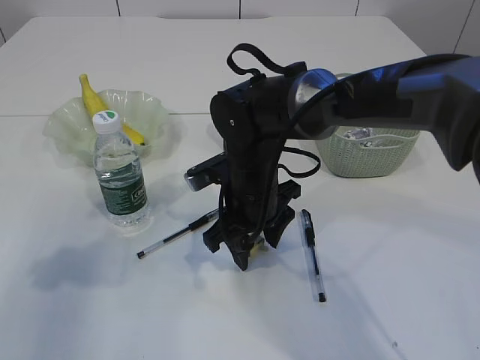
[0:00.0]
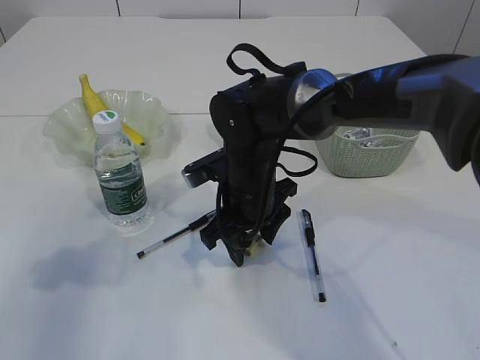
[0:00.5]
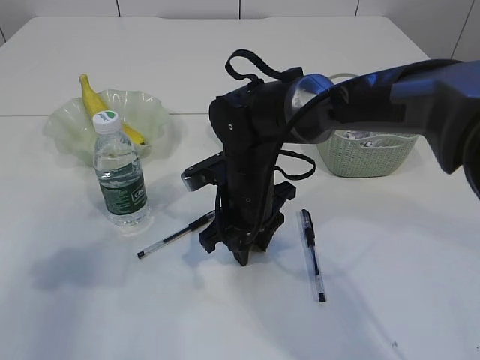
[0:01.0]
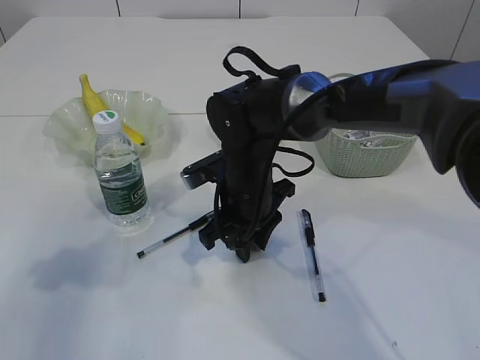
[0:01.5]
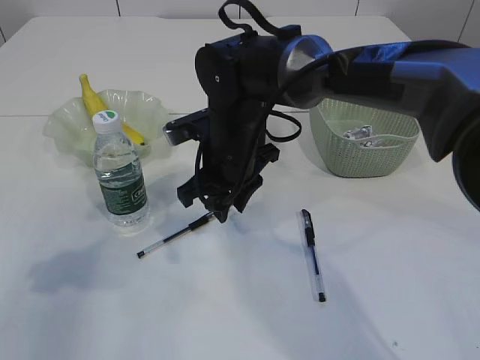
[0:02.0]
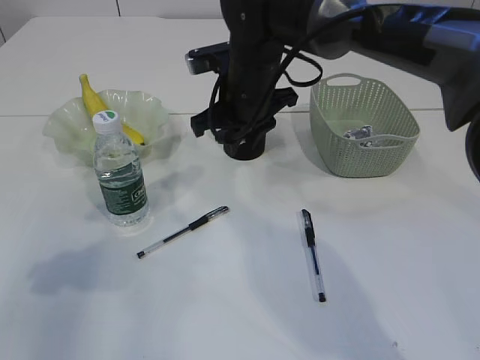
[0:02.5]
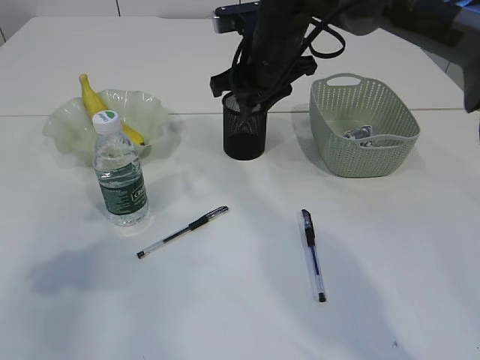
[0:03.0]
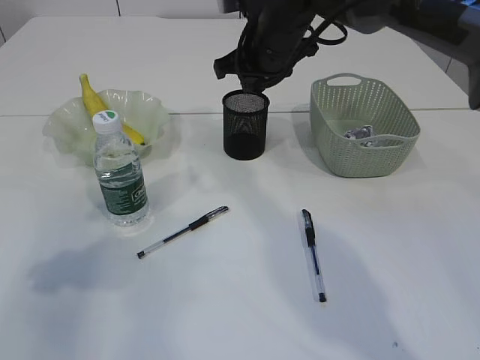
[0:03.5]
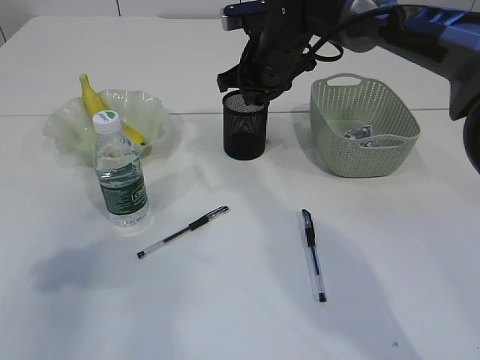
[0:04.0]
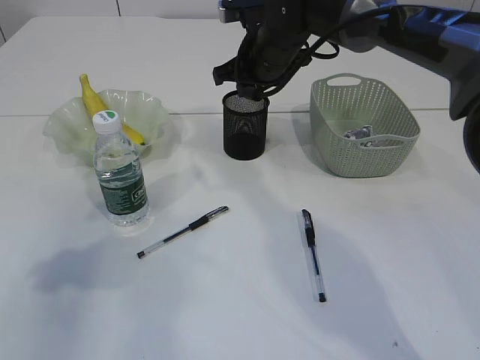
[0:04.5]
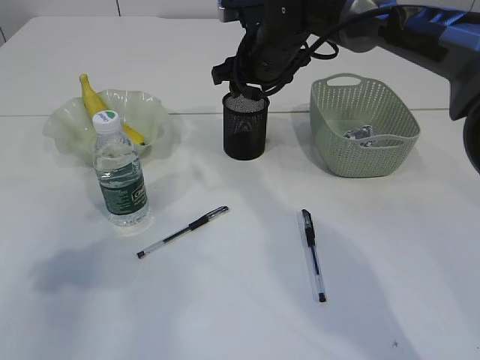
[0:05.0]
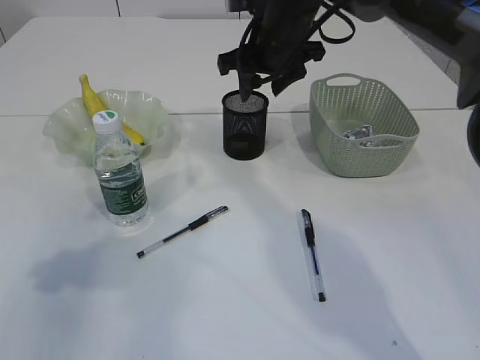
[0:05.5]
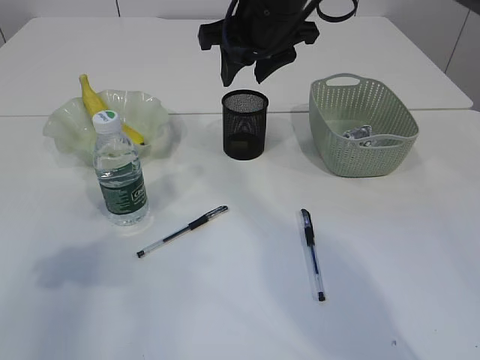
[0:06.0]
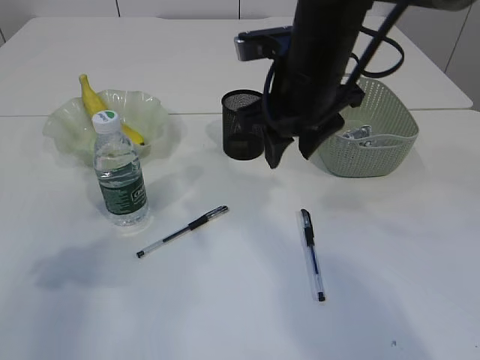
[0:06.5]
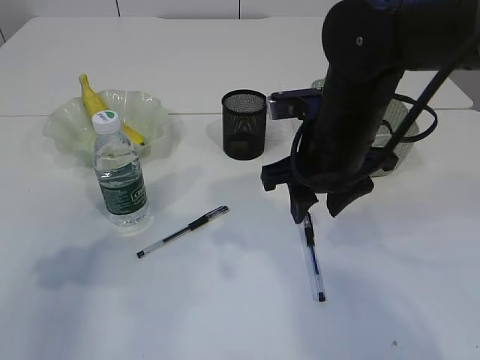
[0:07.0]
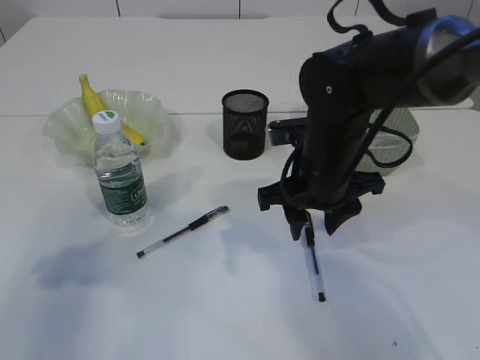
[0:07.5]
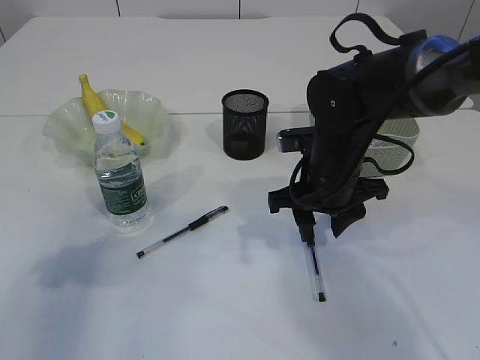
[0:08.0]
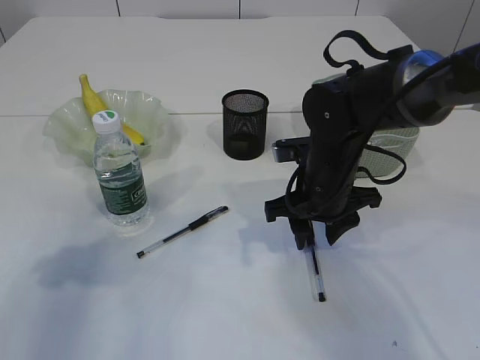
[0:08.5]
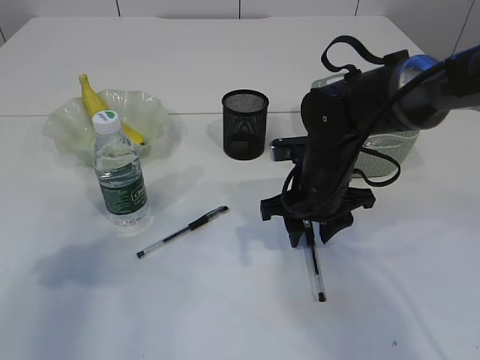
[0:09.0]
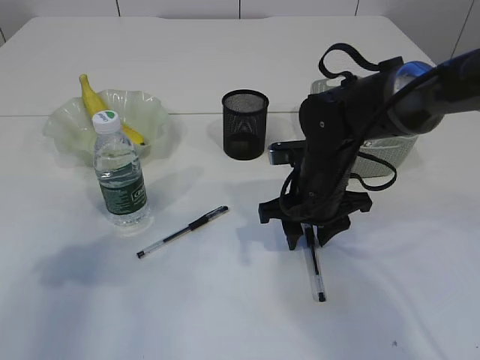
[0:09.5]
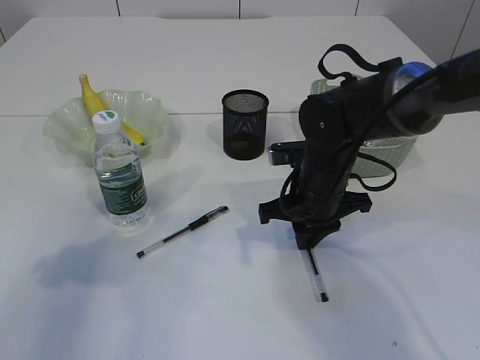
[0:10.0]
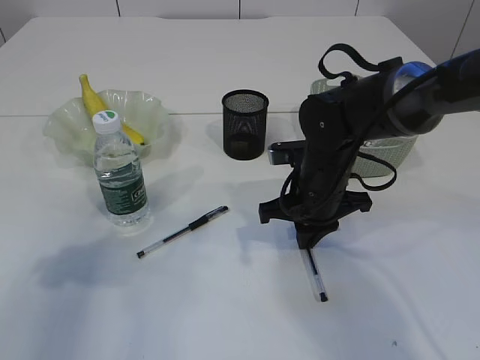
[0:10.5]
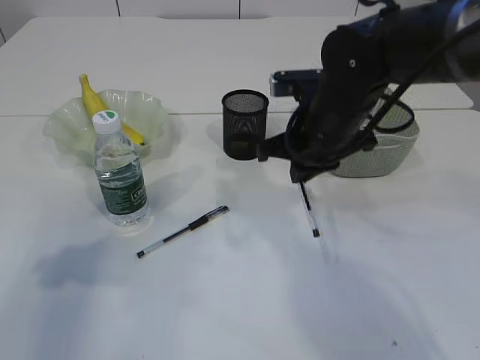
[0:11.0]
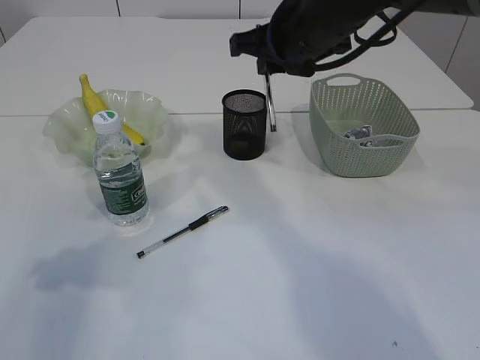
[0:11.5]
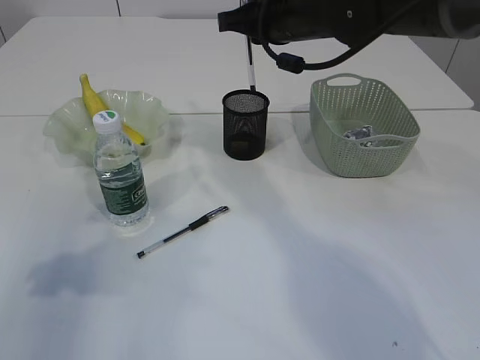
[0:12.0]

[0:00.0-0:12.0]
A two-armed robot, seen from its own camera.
Step, 0:02.0 to 0:05.5: Place the eraser into the pen holder.
Step, 0:06.0 to 0:10.5: Pick up the pen with right arm.
0:00.0 to 0:02.0: The right gripper changes place by some 5 cm, and closes.
0:02.0 to 0:04.0: The right gripper shifts roughly 15 cm forward, to the right and upward.
0:04.0 to 0:06.0: The right gripper travels upward and backward by approximately 10 cm.
0:06.0 to 0:08.0: The right gripper heads downward and backward, covering about 20 cm.
0:08.0 to 0:10.0: The right gripper closes up.
0:10.0 to 0:12.0: The right gripper moves upward and forward, roughly 20 cm.

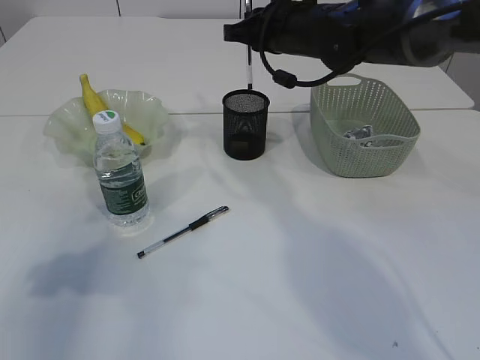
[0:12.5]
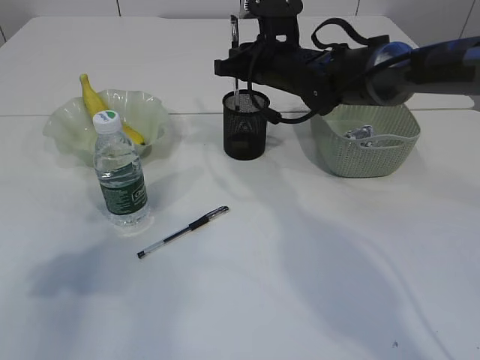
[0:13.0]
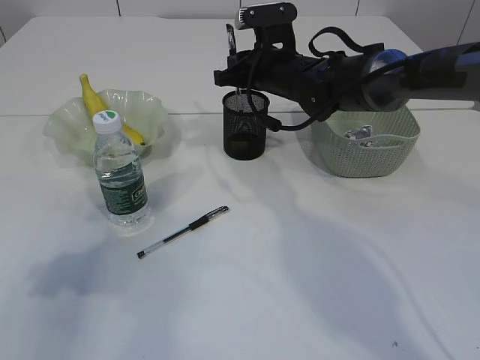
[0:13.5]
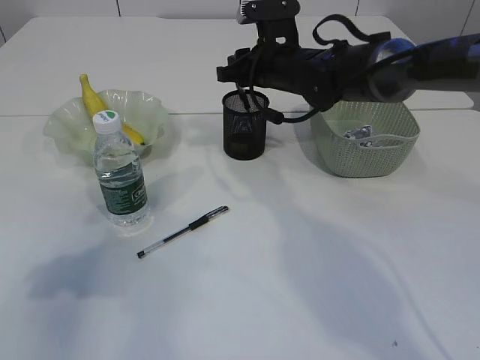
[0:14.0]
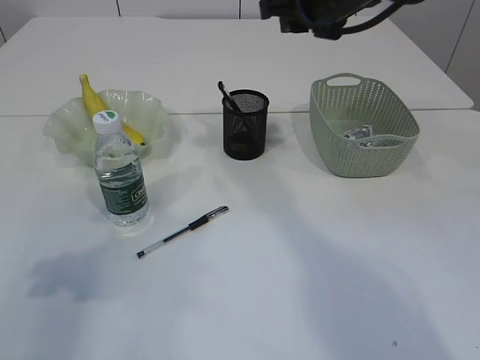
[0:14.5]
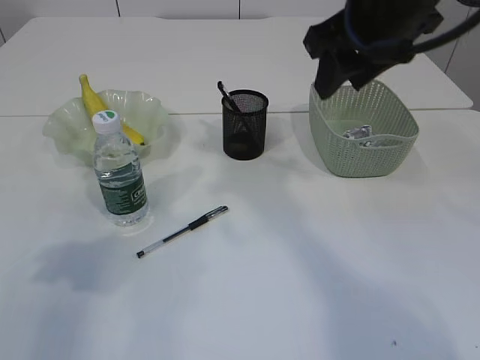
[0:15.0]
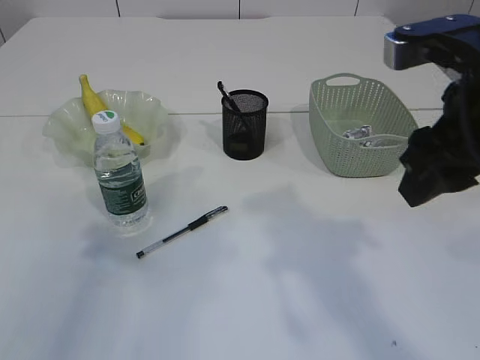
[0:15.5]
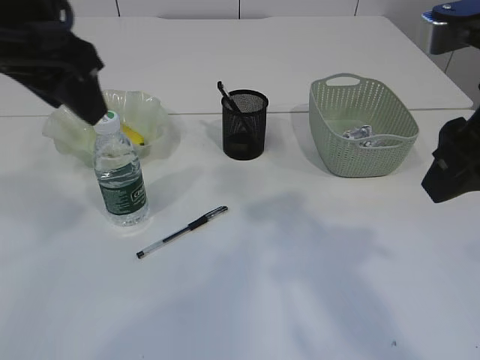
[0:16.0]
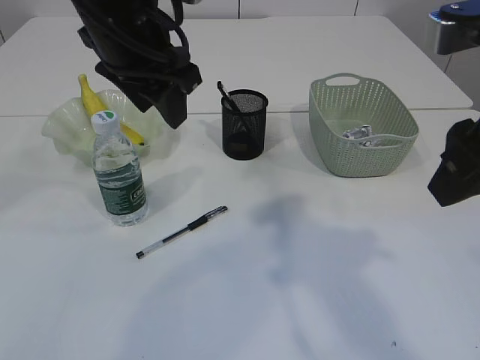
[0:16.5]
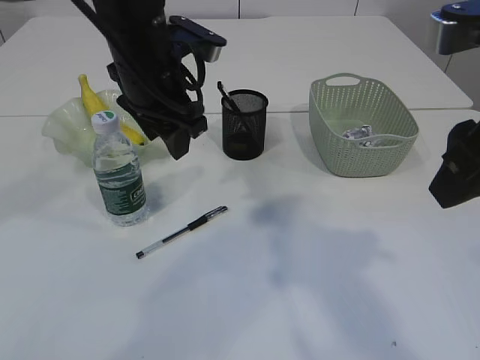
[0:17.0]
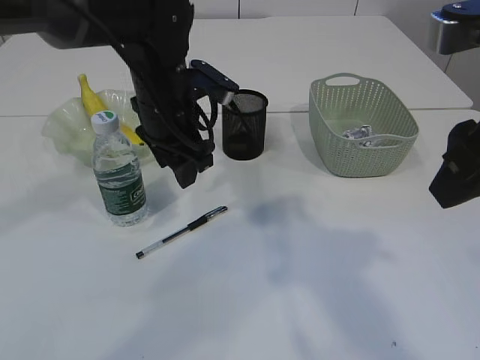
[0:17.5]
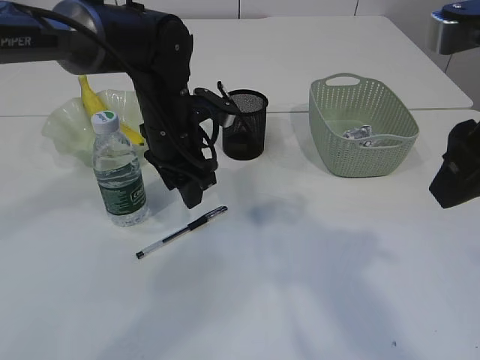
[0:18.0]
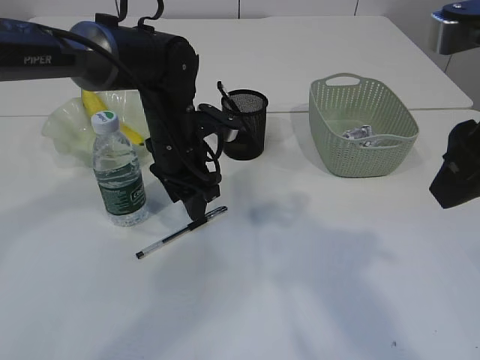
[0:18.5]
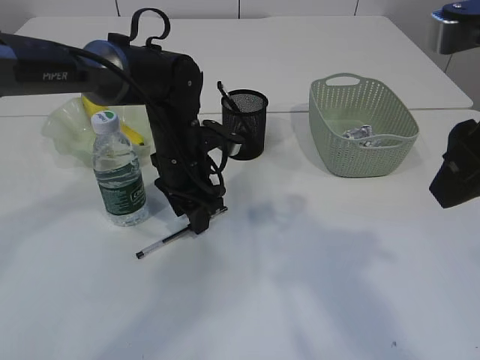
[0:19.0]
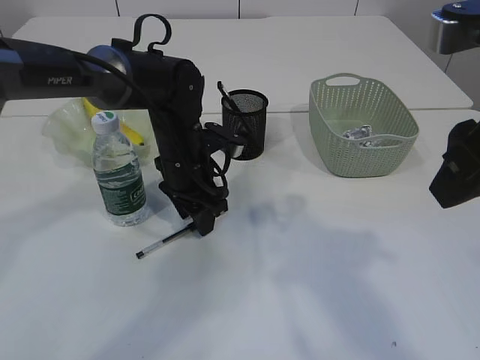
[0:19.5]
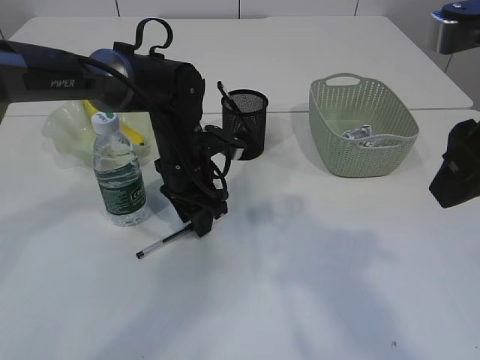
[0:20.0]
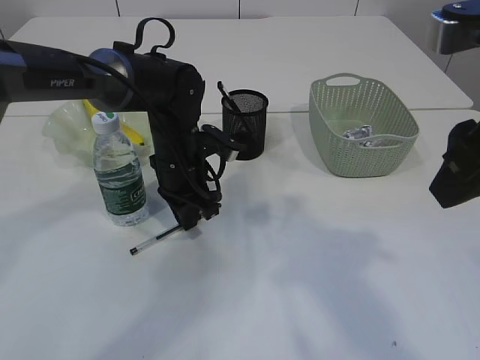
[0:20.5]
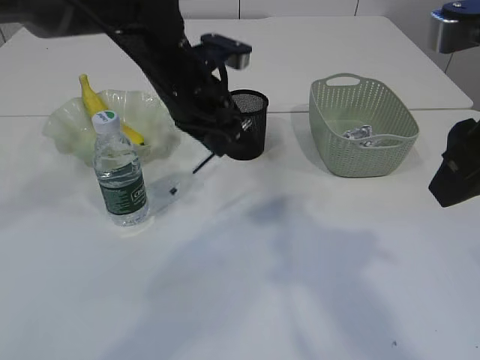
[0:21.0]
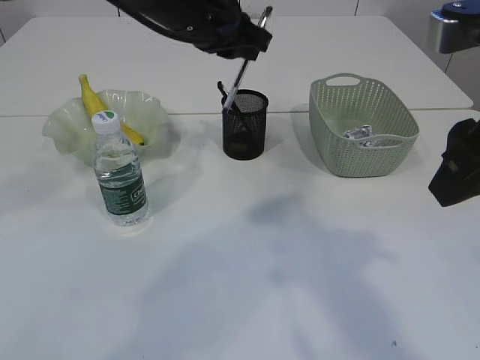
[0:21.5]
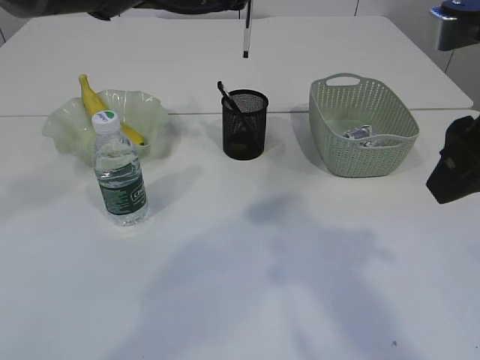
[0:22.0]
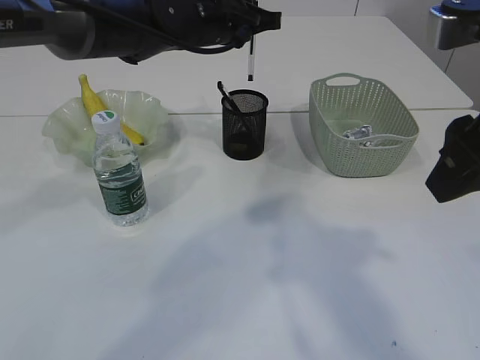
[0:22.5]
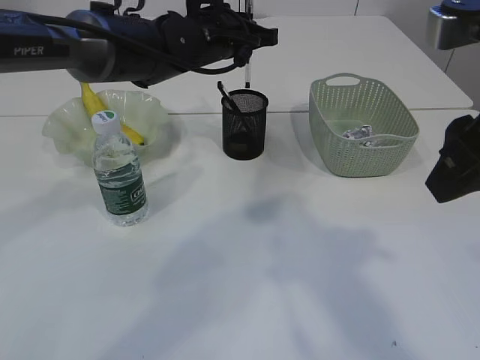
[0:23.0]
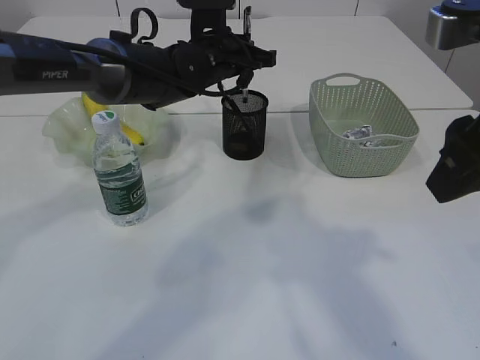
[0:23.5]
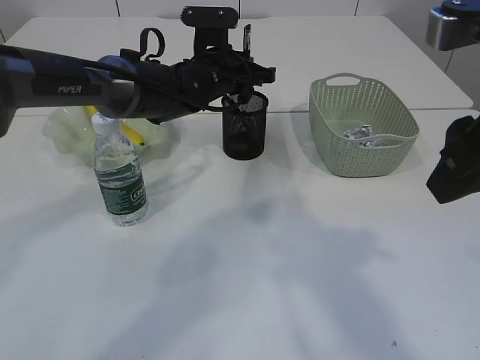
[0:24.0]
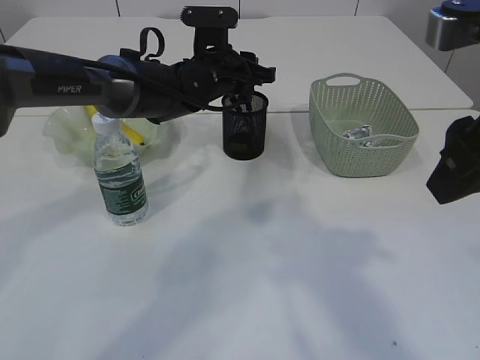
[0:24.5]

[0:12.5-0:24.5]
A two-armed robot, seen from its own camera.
Step, 0:14.5 to 0:20.5: Pick up the pen with left arm.
0:12.5 to 0:14.5: The right gripper goes approximately 5 cm upward, and opens up.
0:14.5 to 0:16.5: The left gripper shifts approximately 25 cm to the right and forward. The right gripper goes some 20 cm backward.
0:16.5 to 0:18.5: The left gripper goes about 15 cm downward.
0:18.5 to 0:20.5: The left gripper closes up.
0:20.5 to 0:22.5: The left gripper heads upward, covering about 15 cm.
0:22.5 to 0:24.5: The left gripper is displaced downward by some 10 cm, and opens its fingers.

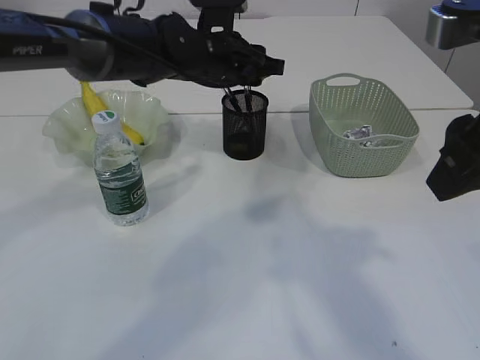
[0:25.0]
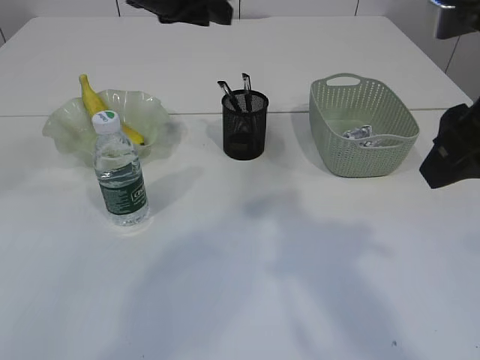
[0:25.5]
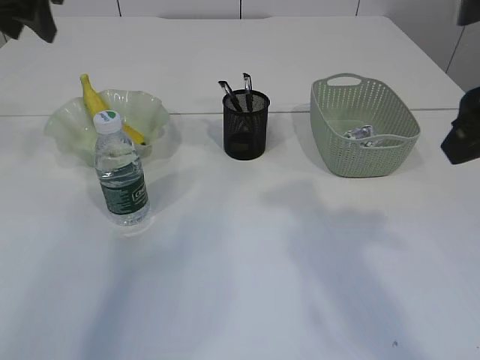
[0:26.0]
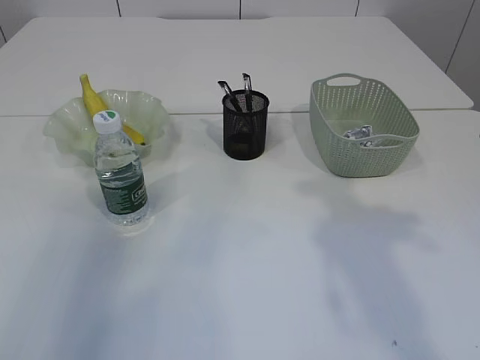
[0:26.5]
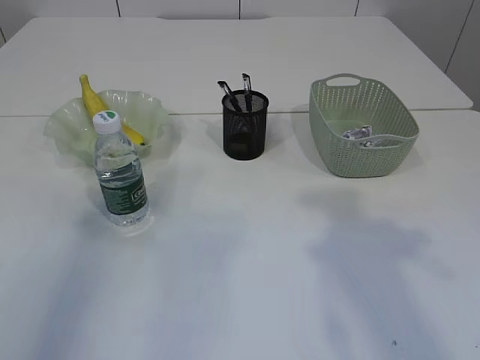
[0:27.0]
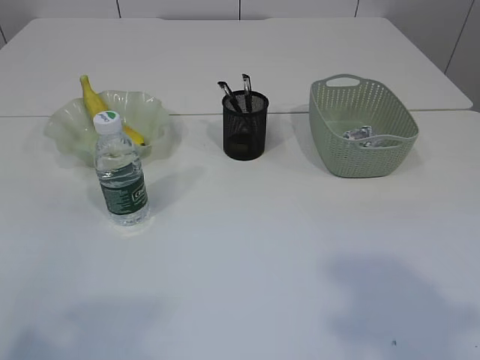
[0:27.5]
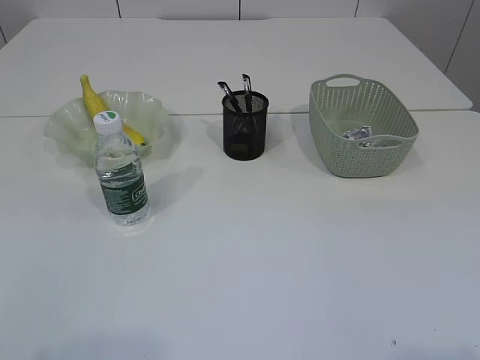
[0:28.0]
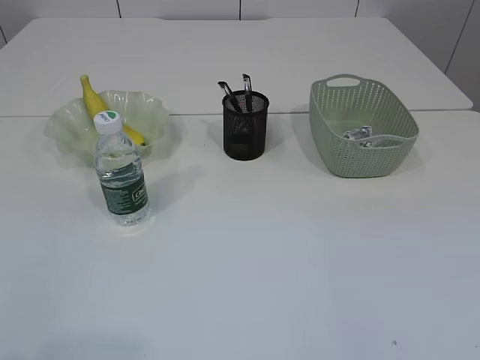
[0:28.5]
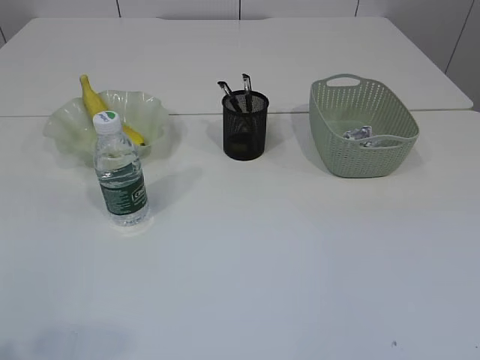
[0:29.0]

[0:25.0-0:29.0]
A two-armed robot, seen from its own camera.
0:25.0 to 0:27.0: The left gripper heads to the left, backward and upward, covering some 40 cm. The right gripper travels to the right by about 5 cm.
0:27.0 to 0:29.0: The left gripper moves backward and downward, roughly 20 cm.
